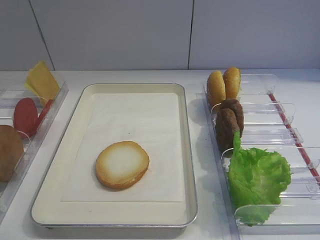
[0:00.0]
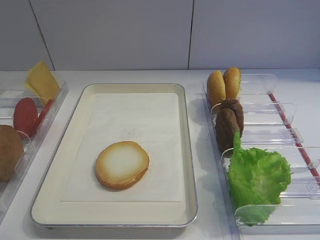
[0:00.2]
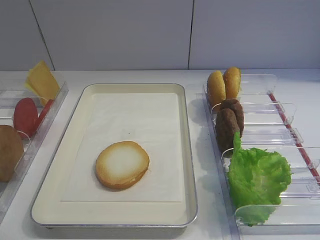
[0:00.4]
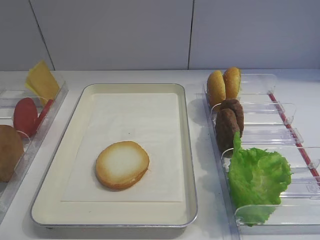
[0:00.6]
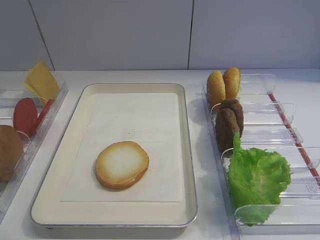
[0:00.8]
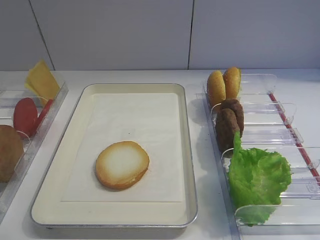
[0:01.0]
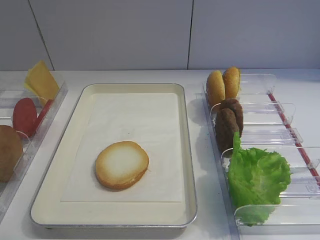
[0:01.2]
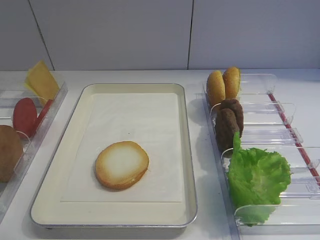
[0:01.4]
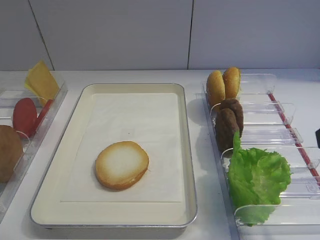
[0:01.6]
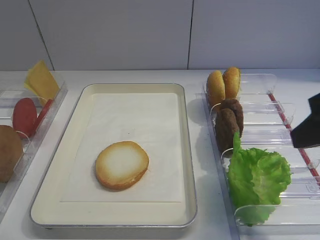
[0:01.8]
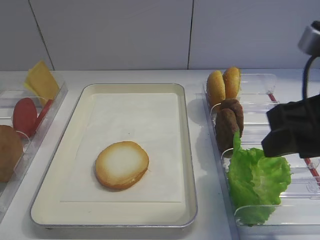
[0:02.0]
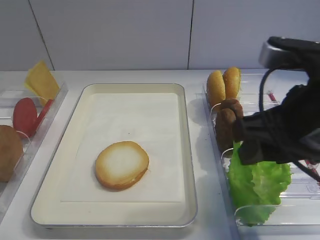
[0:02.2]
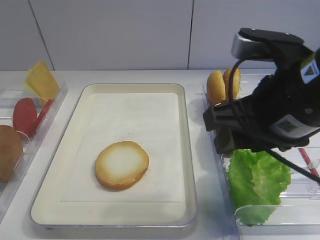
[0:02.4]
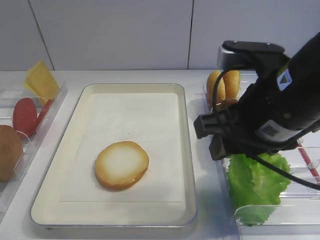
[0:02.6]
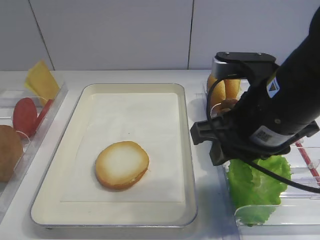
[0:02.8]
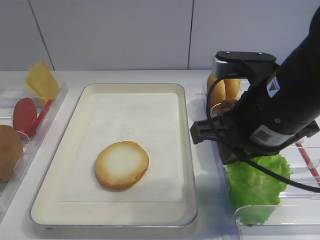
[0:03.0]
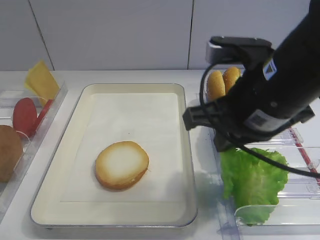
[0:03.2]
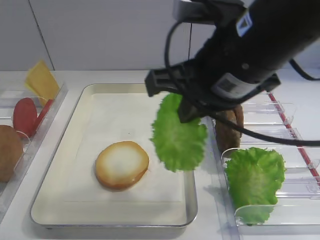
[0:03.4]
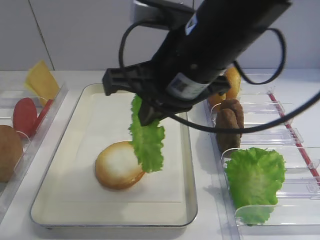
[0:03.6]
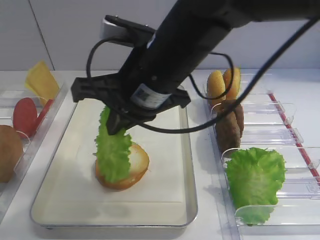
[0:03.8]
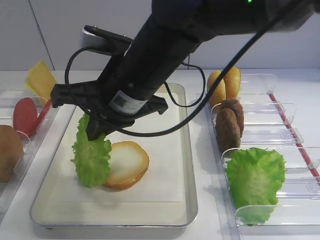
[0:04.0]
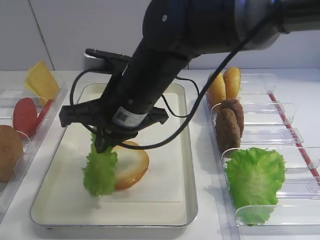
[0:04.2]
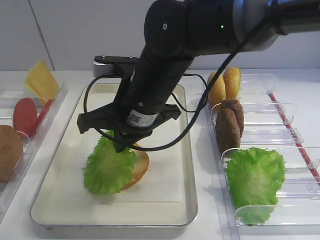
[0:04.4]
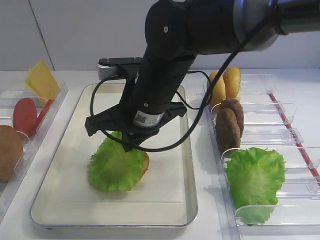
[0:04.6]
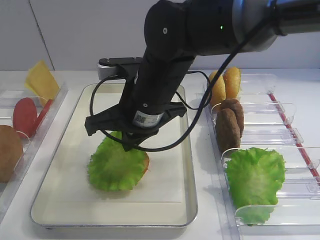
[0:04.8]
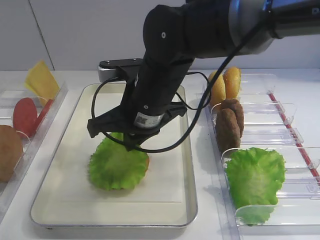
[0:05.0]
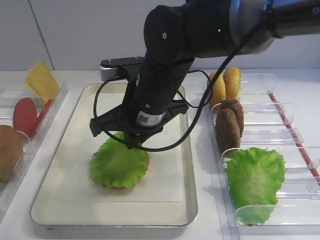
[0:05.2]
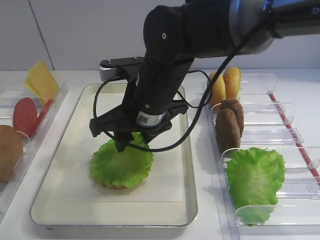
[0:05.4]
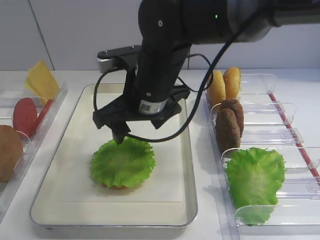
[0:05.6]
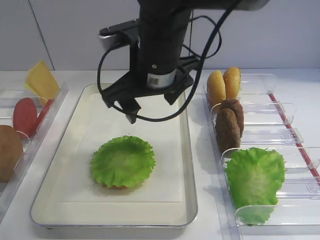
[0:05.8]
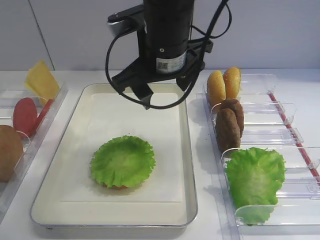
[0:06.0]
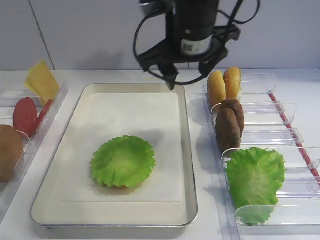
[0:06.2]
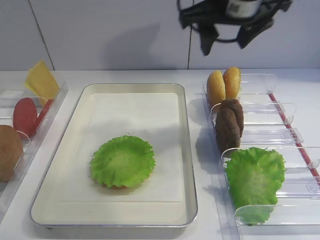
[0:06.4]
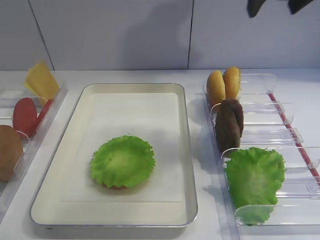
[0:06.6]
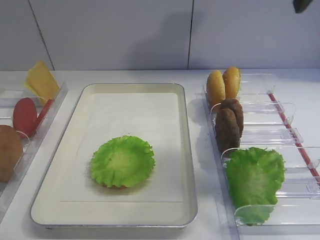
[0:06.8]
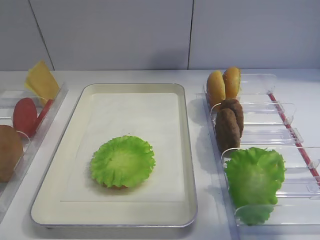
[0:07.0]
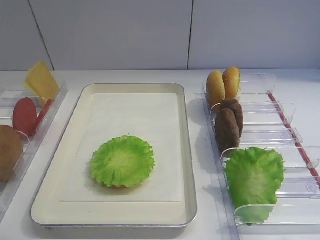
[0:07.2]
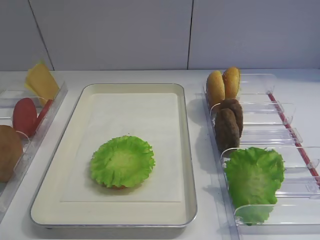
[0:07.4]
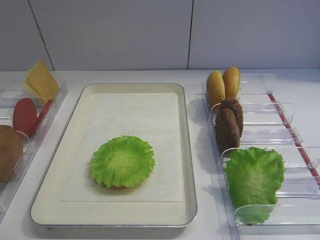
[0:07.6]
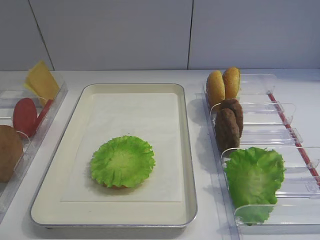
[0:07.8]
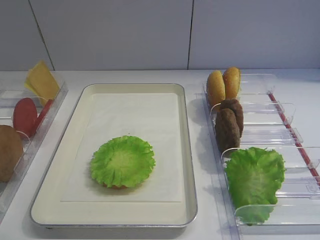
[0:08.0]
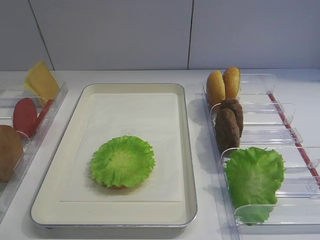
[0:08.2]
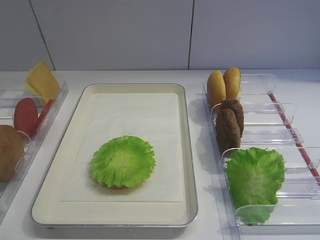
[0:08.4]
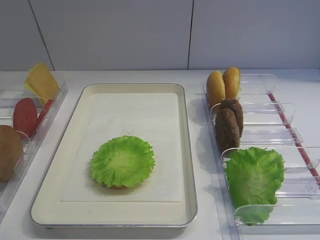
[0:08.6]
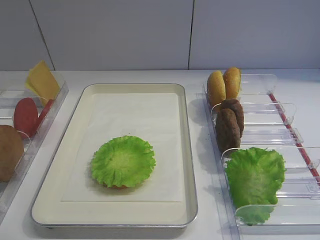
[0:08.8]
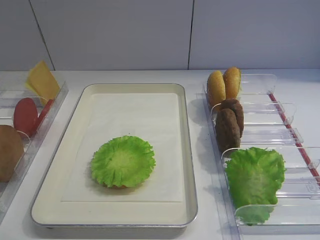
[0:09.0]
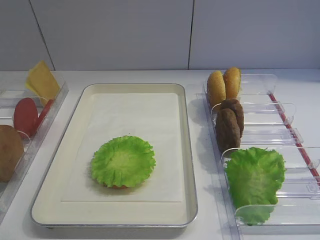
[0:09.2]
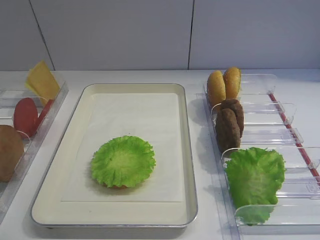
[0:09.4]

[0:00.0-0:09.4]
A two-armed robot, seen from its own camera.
Step, 0:00.0 to 0:03.0: Pick up the lettuce leaf with the right gripper.
Step, 0:03.2 to 0:05.6: Place the lettuce leaf on the bread slice with the right gripper.
0:01.6 to 0:03.2: The right gripper heads to the left and forward, covering roughly 15 cm, and closes.
0:03.2 to 0:04.8: The right gripper goes some 15 cm to the left, forward and downward.
0:04.8 to 0:06.2: The right gripper goes approximately 15 cm upward, to the right and forward, and opens its fingers.
0:06.2 to 0:07.8: The right gripper travels backward and to the right by approximately 40 cm.

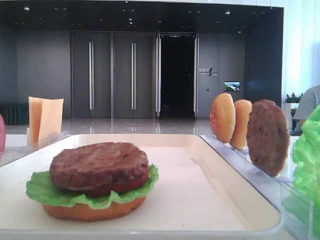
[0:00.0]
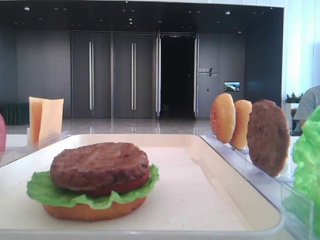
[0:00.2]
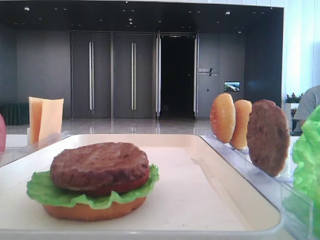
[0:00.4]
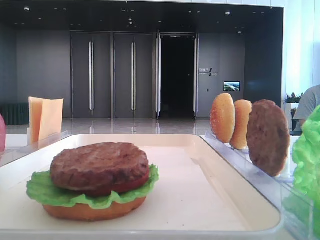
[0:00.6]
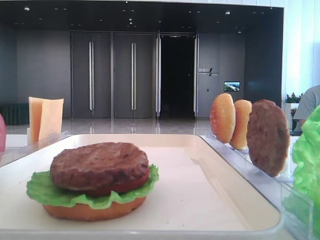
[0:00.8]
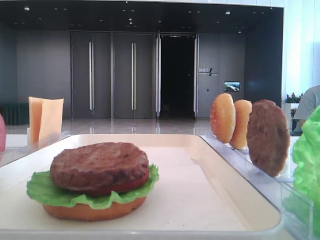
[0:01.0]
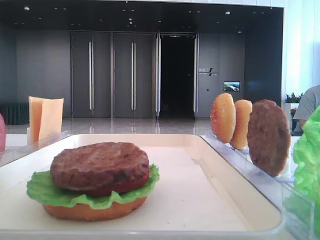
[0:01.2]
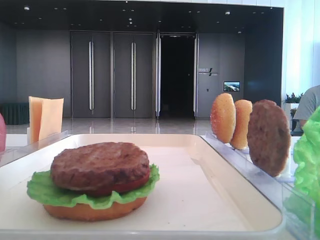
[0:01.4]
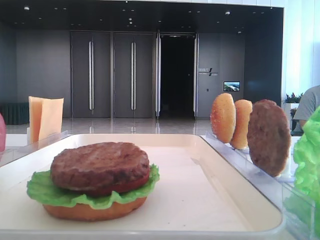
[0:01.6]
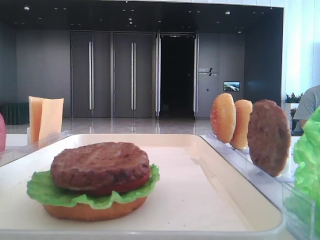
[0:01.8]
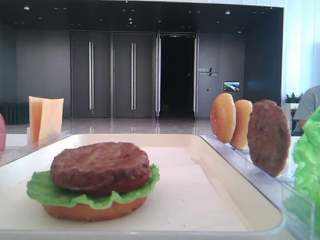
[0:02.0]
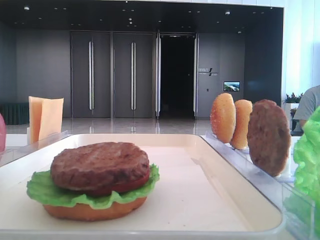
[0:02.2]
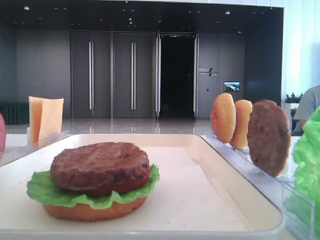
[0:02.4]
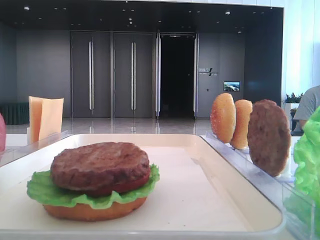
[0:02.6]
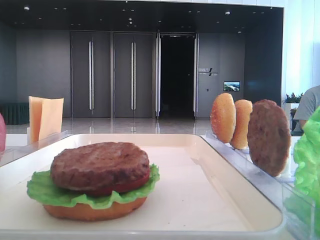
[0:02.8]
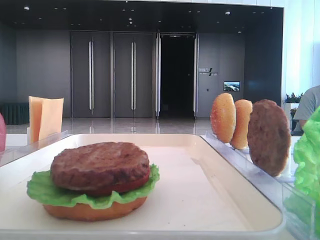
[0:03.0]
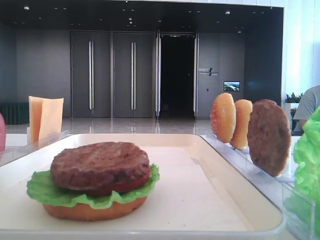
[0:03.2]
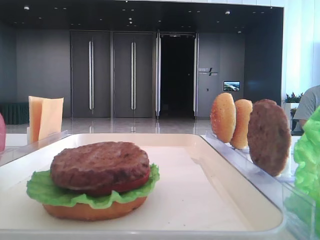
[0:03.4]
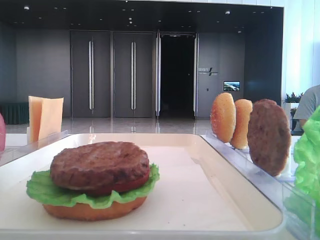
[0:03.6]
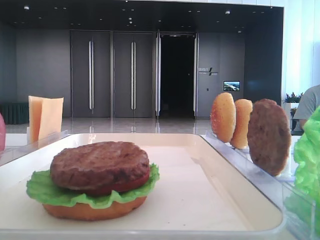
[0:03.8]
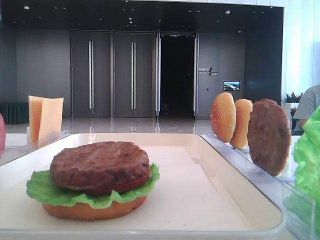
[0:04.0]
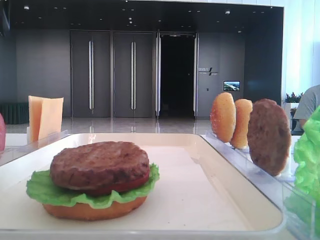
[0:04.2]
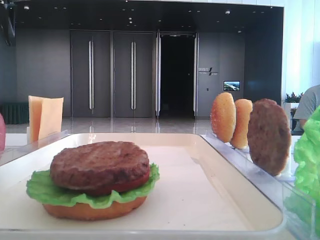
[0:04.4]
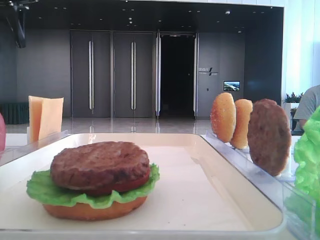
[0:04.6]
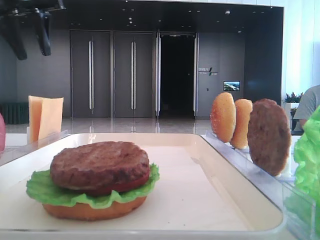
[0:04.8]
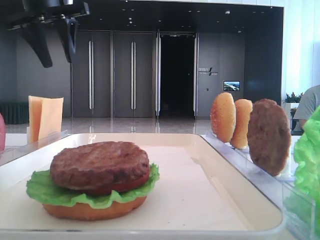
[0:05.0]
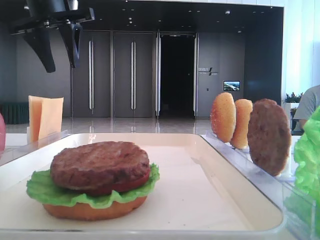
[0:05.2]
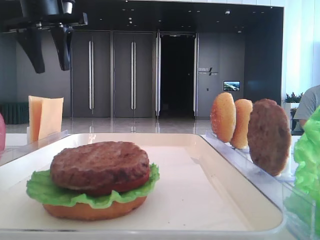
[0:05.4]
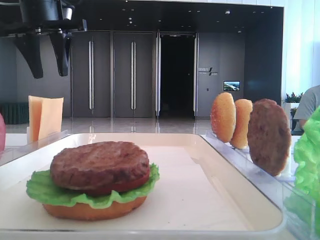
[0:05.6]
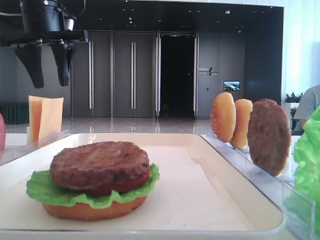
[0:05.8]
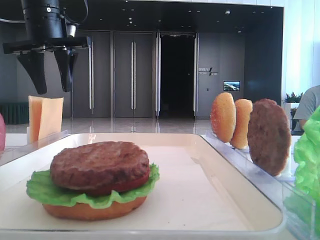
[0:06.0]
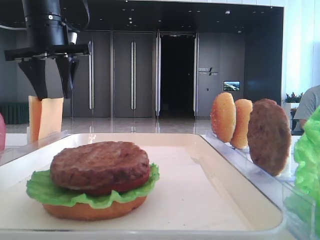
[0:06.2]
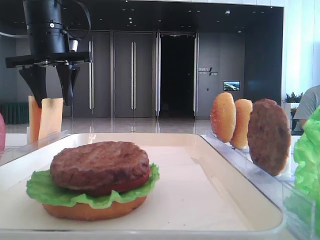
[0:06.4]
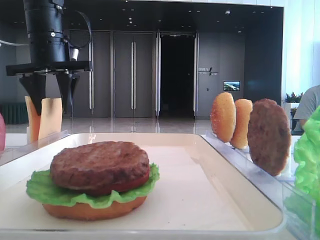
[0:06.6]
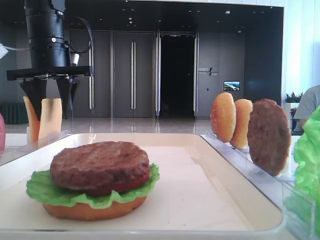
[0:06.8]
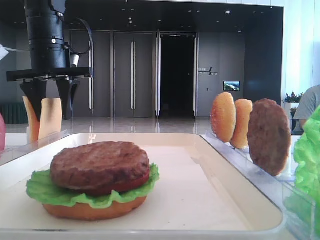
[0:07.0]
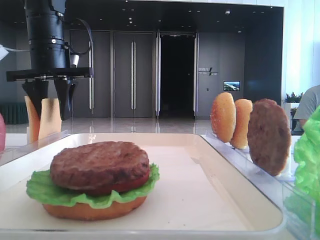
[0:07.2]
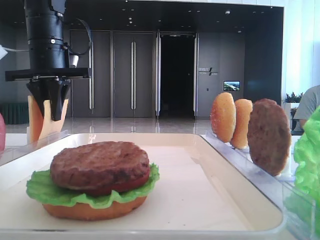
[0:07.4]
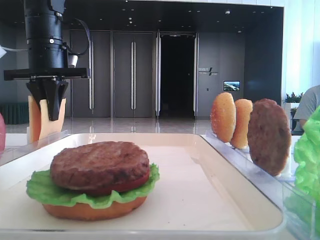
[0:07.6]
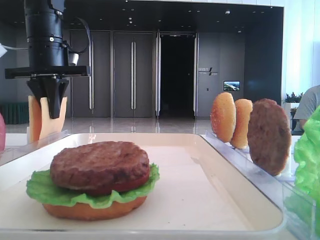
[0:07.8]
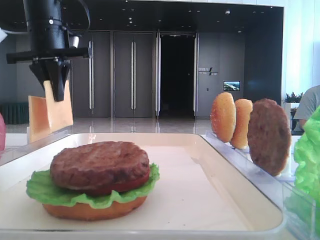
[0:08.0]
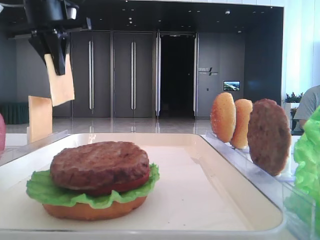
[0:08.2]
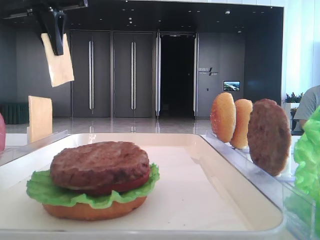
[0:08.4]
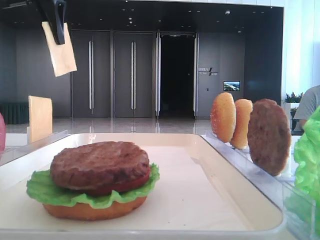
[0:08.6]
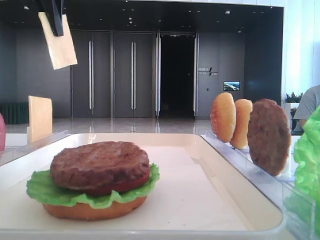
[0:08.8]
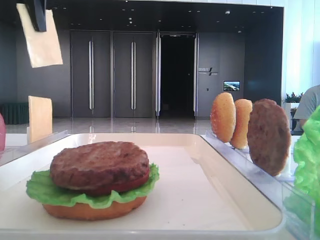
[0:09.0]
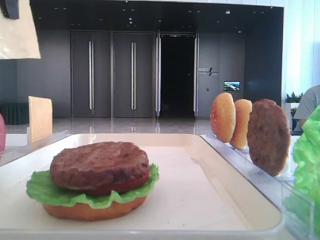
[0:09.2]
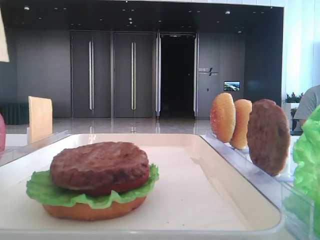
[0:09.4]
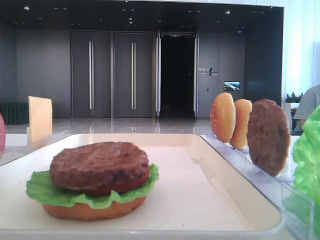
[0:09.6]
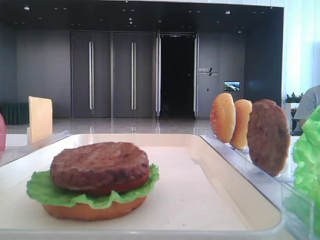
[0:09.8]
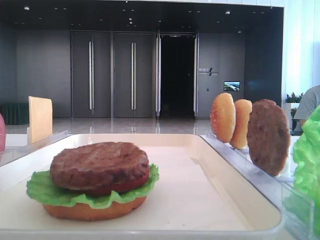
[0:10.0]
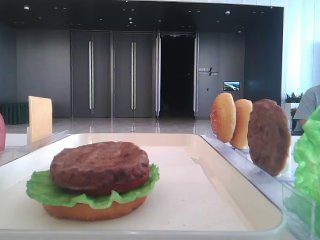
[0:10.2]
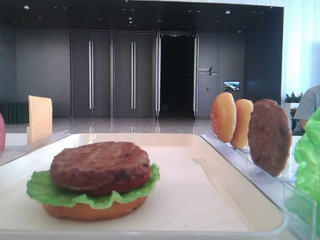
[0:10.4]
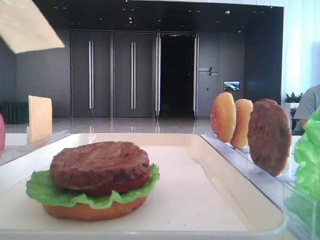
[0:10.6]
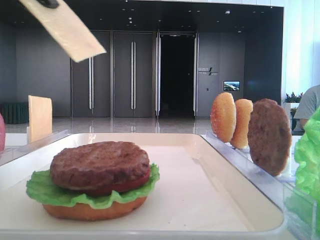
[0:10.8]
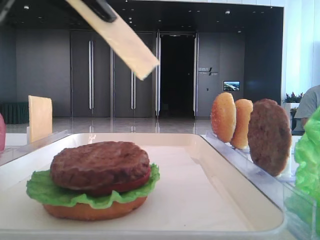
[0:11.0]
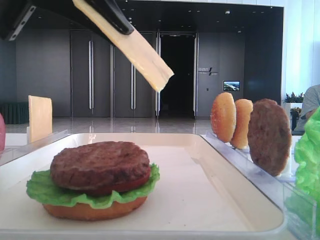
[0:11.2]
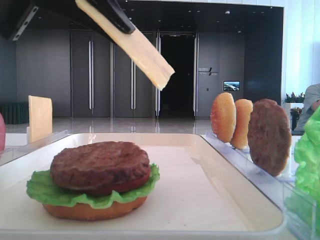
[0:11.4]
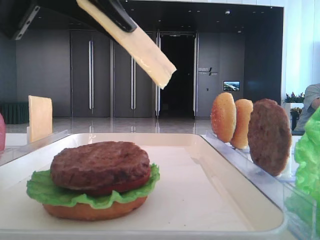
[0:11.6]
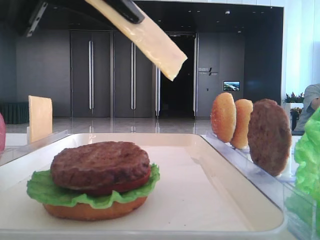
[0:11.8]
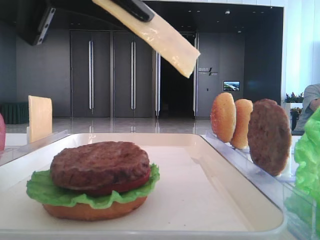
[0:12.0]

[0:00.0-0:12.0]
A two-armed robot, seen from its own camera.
Step, 0:00.0 to 0:07.6: Pick up the cheese slice with the left hand.
0:03.0 to 0:04.4: The left gripper heads forward, covering some 35 cm.
0:04.4 to 0:06.0: The left gripper shifts about 15 cm to the right and downward.
0:06.0 to 0:07.6: The left gripper shifts by about 5 cm, and closes up.
0:07.6 to 0:09.0: The left gripper heads upward and backward, covering some 15 cm.
0:09.0 to 0:10.4: The left gripper goes approximately 20 cm backward.
0:10.4 to 0:12.0: The left gripper shifts roughly 15 cm to the right and downward.

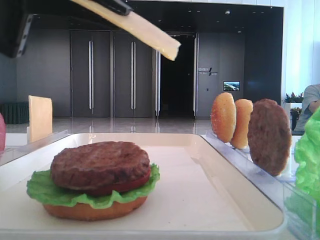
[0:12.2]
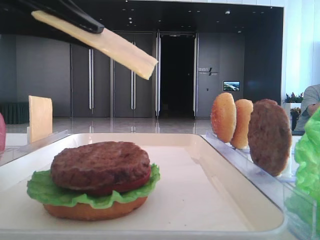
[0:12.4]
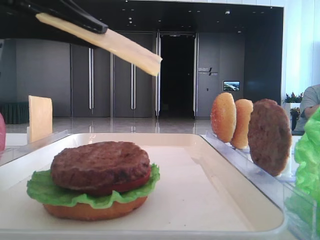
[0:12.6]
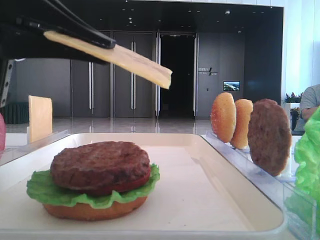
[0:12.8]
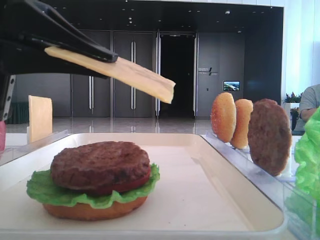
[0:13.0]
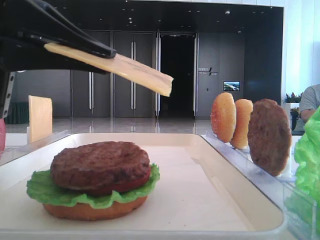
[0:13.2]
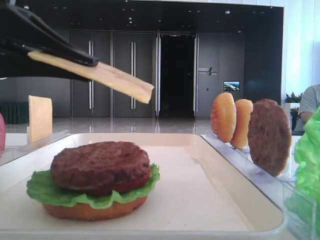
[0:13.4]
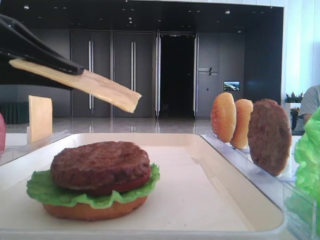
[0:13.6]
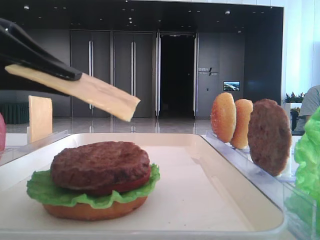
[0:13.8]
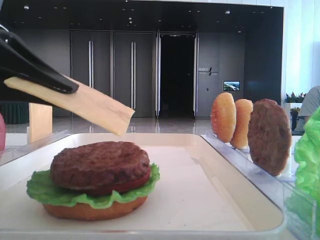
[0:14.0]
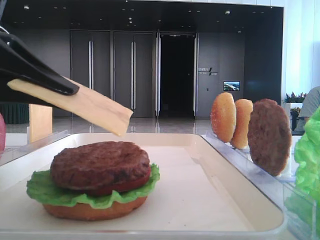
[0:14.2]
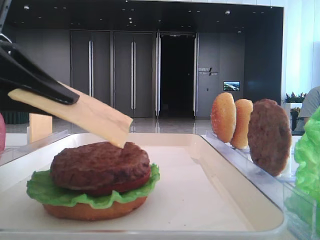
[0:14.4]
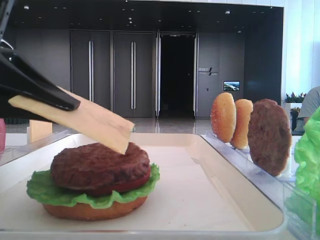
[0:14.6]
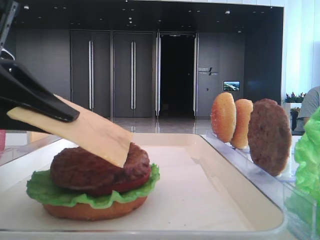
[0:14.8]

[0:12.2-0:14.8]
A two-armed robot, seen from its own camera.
0:12.2 to 0:13.4: The left gripper travels downward by approximately 5 cm.
0:13.4 to 0:14.8: There are only small adjustments of the grippers.
